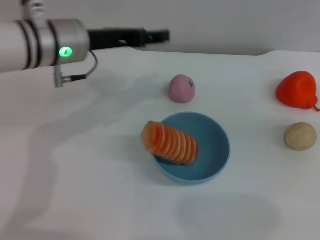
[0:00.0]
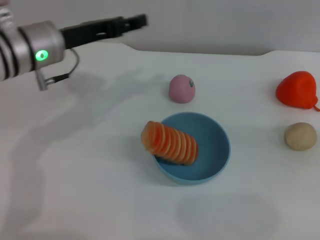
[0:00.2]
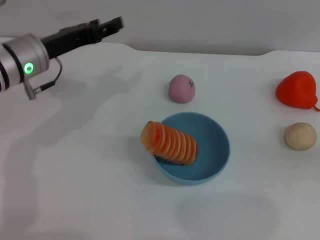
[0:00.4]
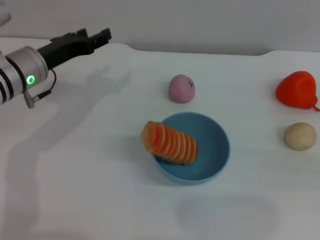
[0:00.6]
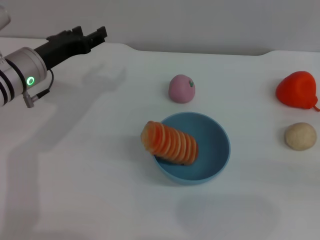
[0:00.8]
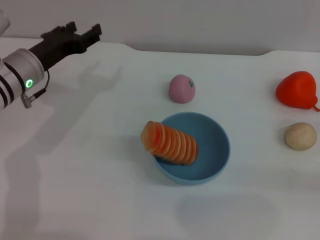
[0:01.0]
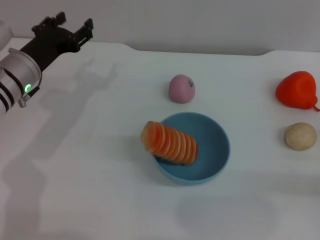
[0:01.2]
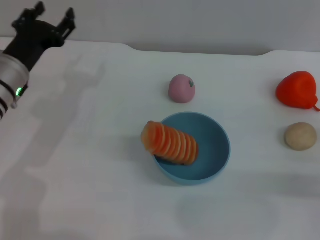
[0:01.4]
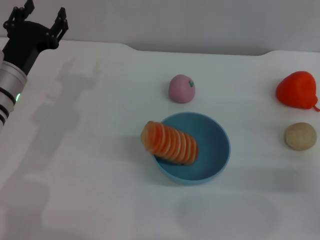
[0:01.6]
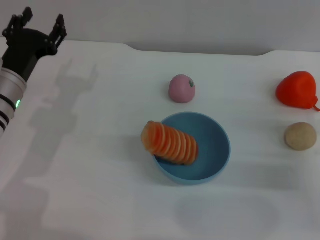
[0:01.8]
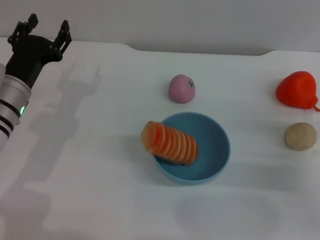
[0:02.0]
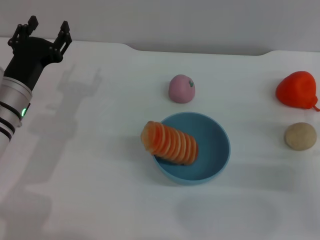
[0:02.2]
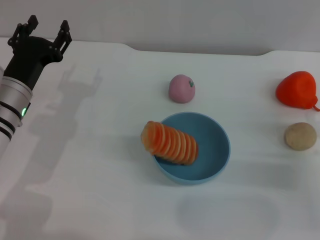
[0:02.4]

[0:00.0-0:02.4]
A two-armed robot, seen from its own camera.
Task of the whole recording: put the bread into the blue bowl and pour it out repeatedly.
0:00.0 to 0:01.2: The right gripper heads downward and backward, covering some 15 cm, while the left gripper travels downward and to the left by some 10 cm.

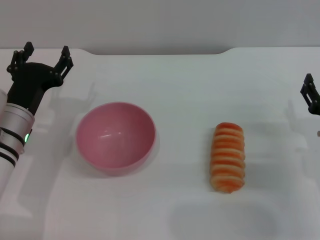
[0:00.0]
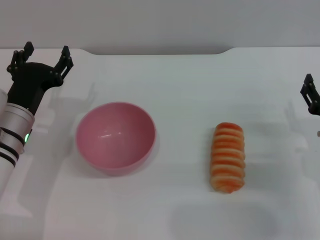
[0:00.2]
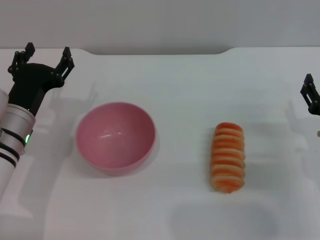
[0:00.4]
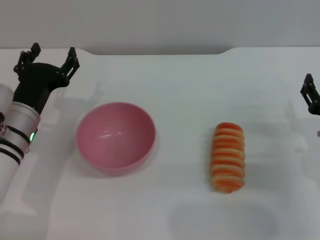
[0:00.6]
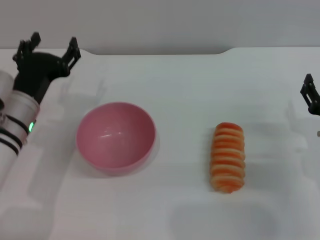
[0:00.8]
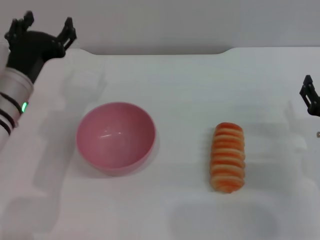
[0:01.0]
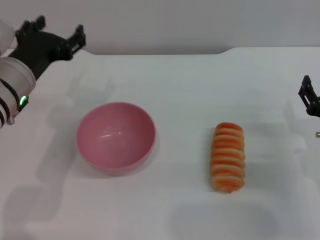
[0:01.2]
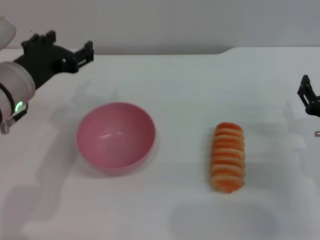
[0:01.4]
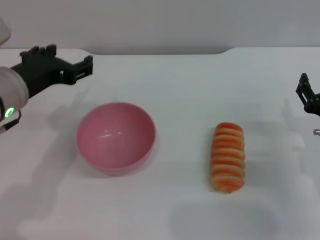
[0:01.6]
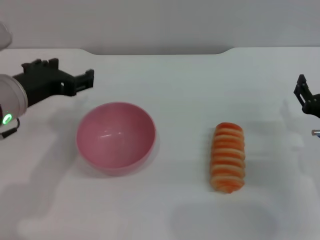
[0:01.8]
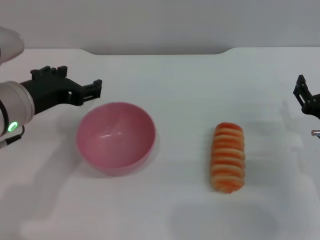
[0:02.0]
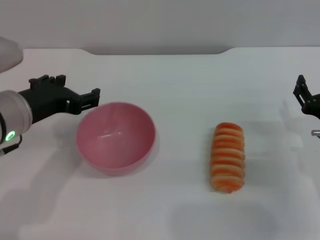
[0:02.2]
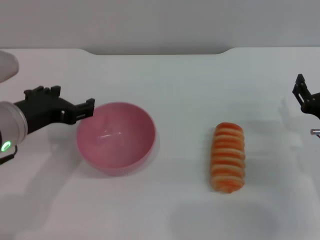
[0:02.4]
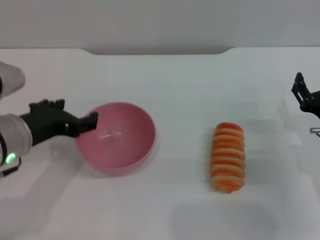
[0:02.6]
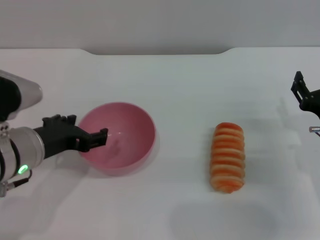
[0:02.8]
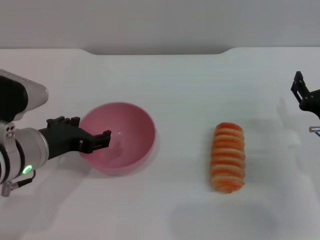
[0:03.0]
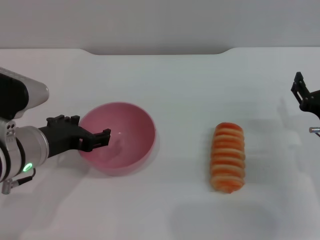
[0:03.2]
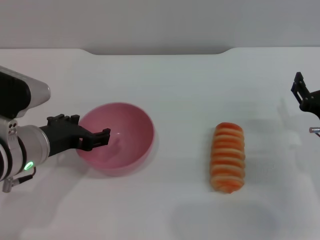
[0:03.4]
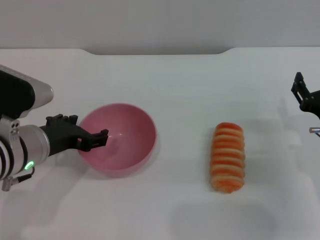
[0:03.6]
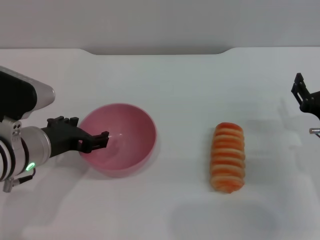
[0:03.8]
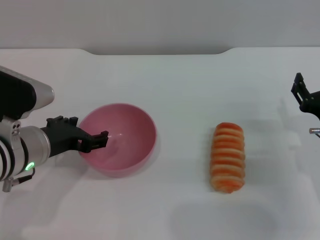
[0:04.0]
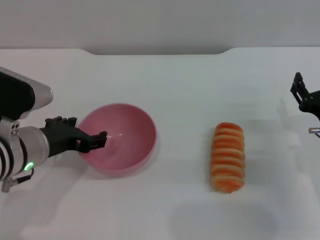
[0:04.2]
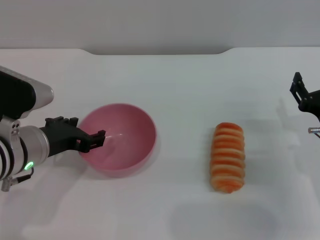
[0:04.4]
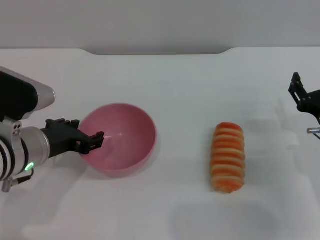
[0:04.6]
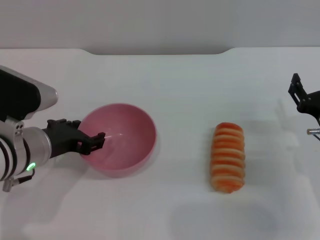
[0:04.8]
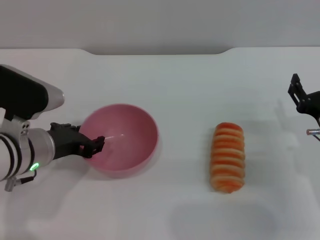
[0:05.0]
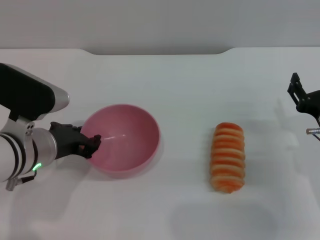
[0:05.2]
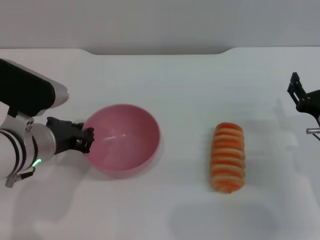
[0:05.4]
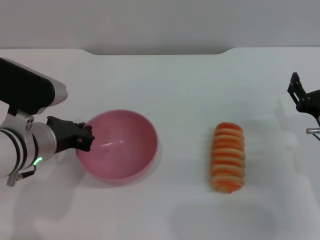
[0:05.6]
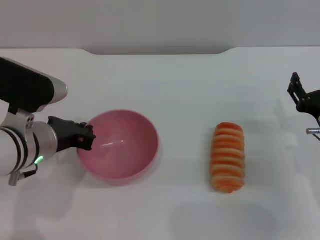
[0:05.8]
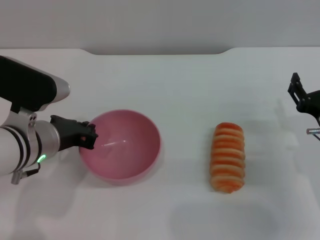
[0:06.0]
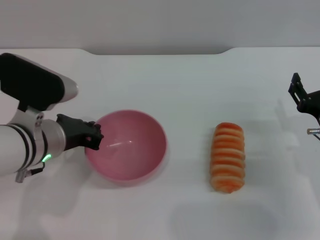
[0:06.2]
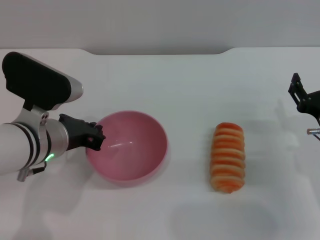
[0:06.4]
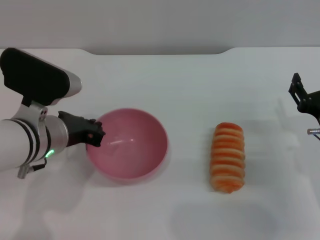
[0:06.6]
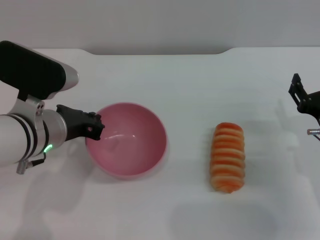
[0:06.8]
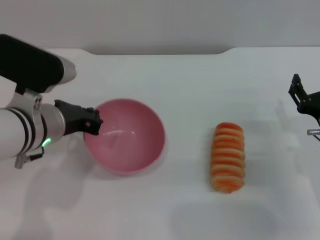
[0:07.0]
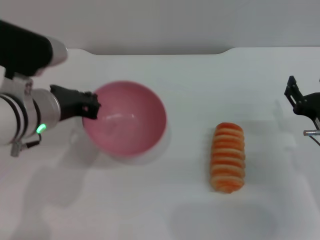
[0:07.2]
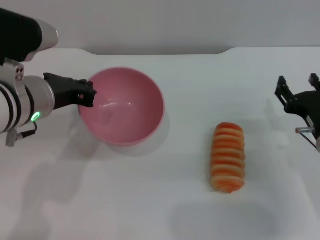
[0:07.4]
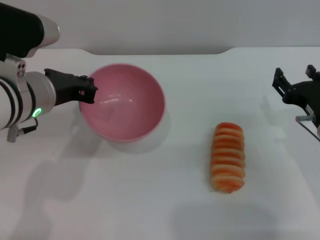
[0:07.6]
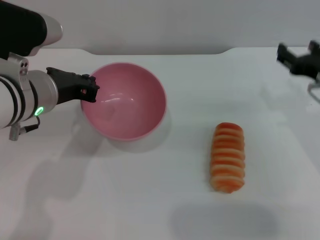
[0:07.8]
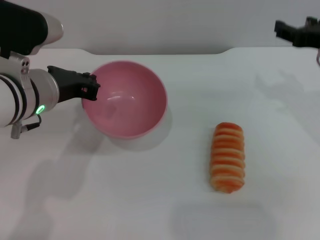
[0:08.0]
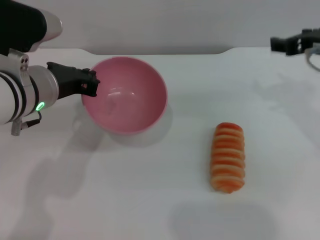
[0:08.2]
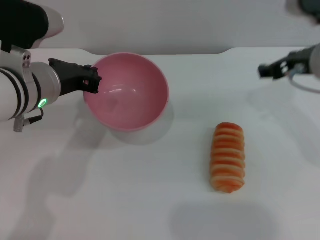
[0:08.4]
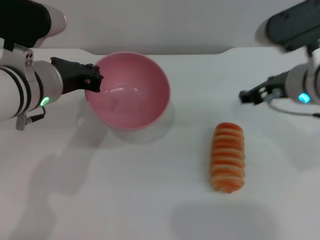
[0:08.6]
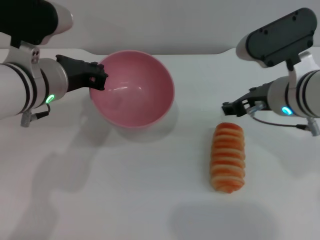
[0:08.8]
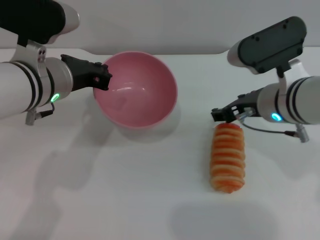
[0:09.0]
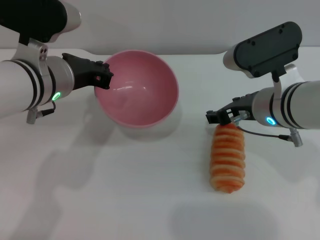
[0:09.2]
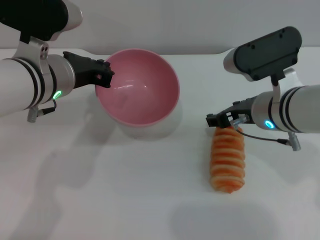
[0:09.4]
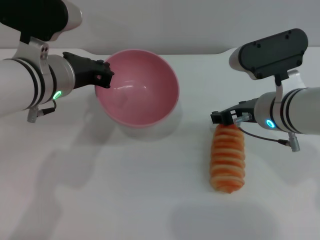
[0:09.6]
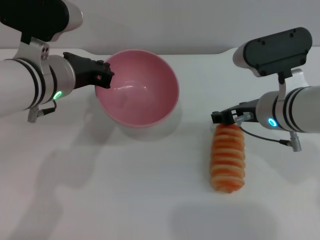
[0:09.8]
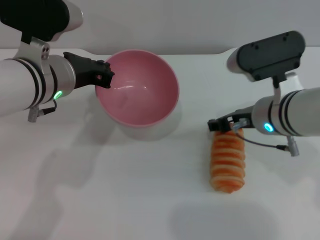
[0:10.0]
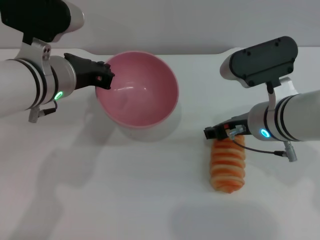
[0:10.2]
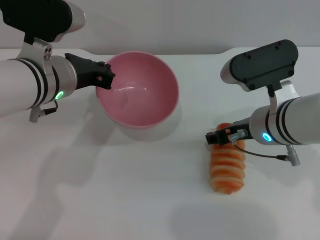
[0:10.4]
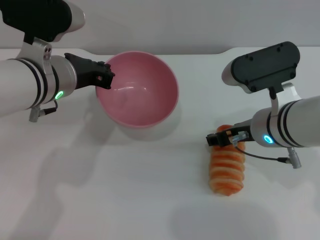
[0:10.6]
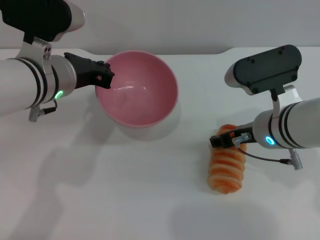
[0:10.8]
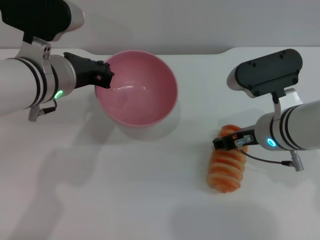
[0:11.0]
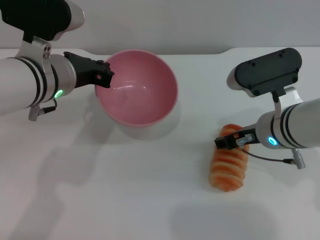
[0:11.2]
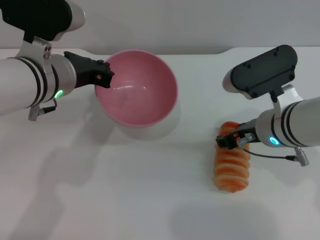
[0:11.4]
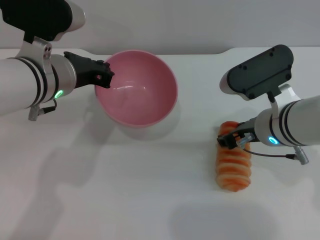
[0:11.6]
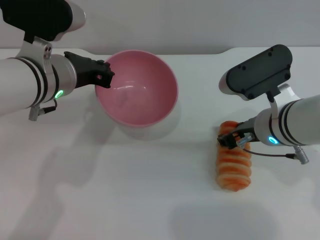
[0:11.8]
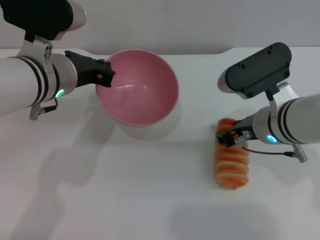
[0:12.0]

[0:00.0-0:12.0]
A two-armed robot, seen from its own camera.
Task of the whole recording: put the bread into the pink bowl and pour it out repeatedly.
Step, 0:00.0 to 0:07.2: Pick up the bowl with the left gripper.
0:00.0 to 0:01.6: The left gripper goes approximately 10 cm upward.
0:01.6 to 0:03.0: The left gripper moves about 5 cm.
0:03.0 to 0:04.4: Both grippers stay put.
0:04.4 to 0:06.0: The left gripper closes its fingers.
0:06.0 to 0:07.6: The left gripper shifts roughly 5 cm upward.
0:07.6 to 0:09.0: The right gripper heads to the left and upward, covering roughly 10 cm.
0:09.0 to 0:12.0: The grippers make only small movements.

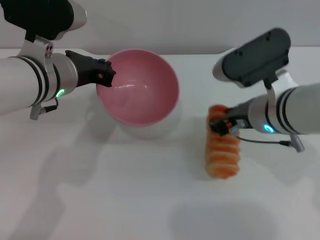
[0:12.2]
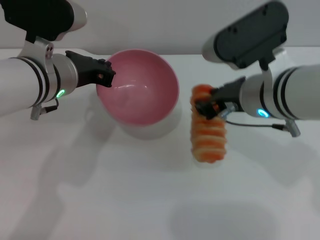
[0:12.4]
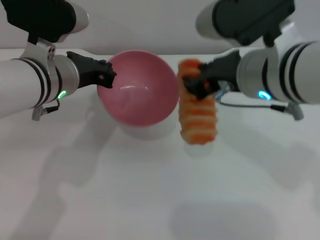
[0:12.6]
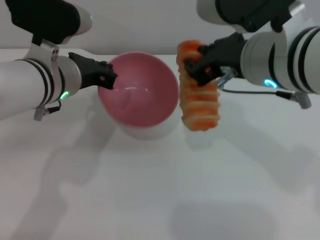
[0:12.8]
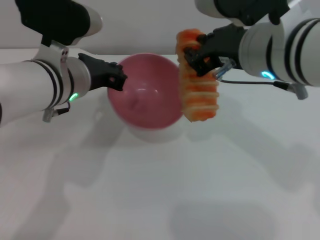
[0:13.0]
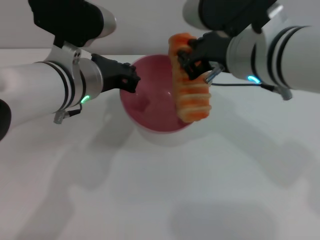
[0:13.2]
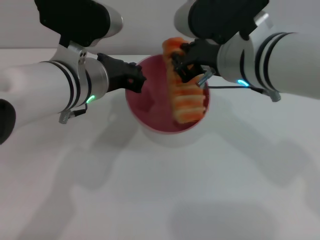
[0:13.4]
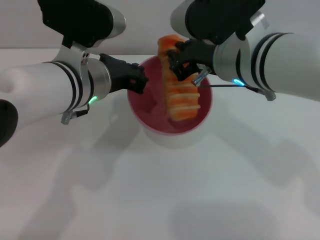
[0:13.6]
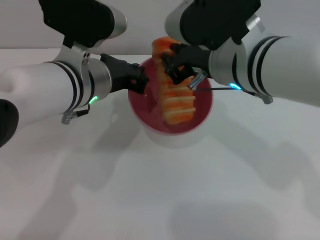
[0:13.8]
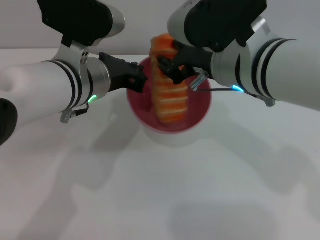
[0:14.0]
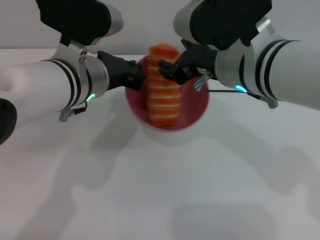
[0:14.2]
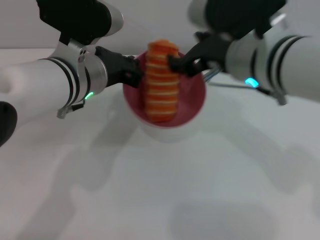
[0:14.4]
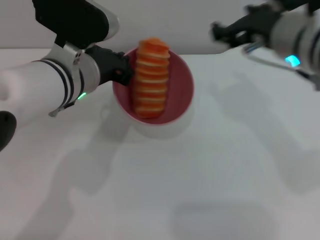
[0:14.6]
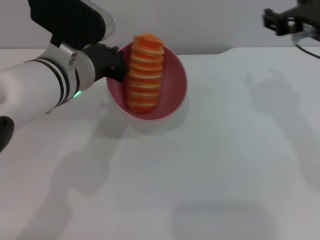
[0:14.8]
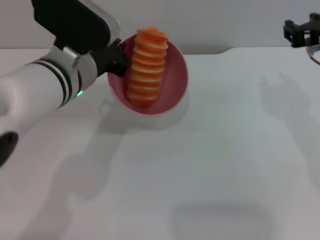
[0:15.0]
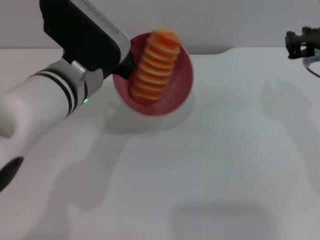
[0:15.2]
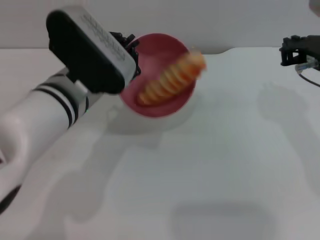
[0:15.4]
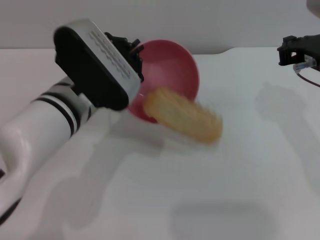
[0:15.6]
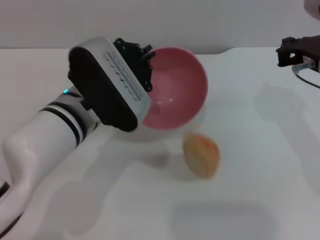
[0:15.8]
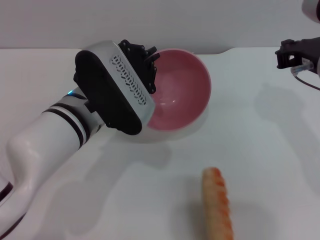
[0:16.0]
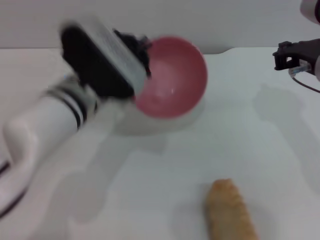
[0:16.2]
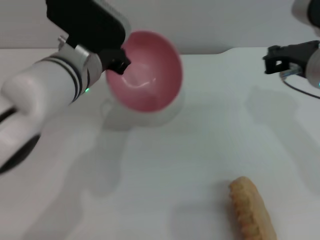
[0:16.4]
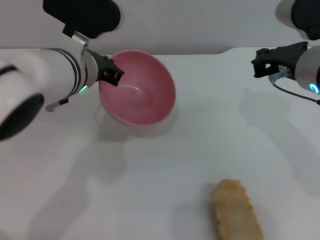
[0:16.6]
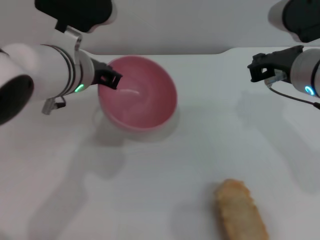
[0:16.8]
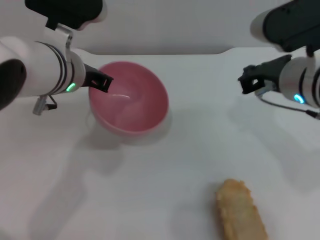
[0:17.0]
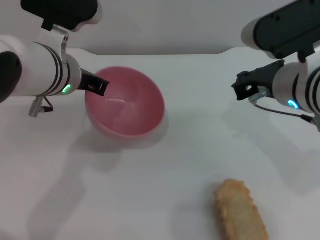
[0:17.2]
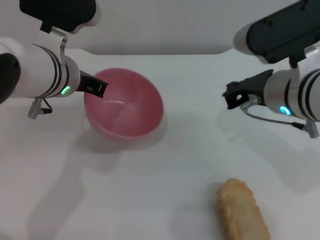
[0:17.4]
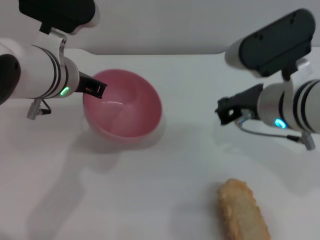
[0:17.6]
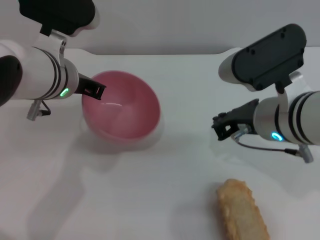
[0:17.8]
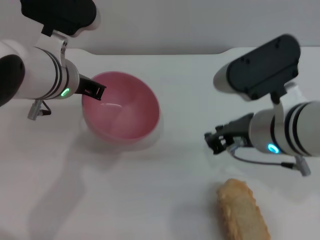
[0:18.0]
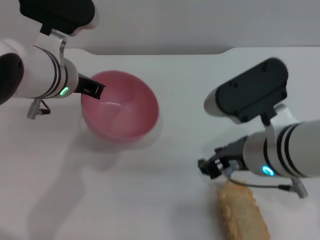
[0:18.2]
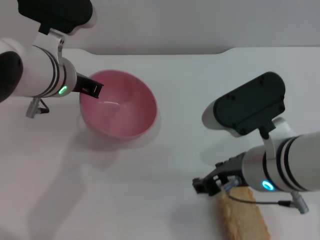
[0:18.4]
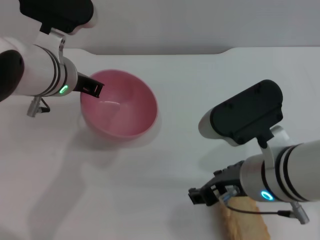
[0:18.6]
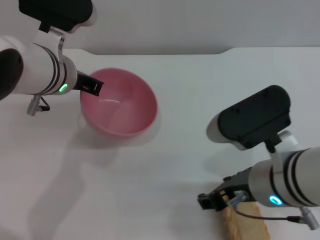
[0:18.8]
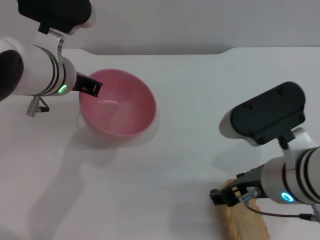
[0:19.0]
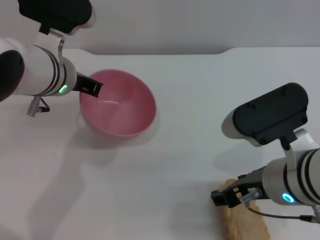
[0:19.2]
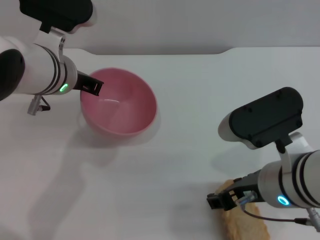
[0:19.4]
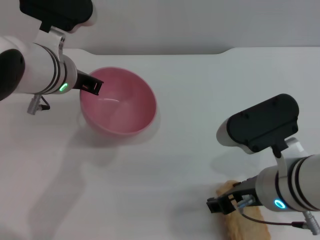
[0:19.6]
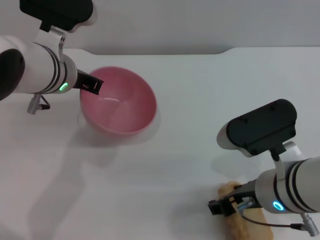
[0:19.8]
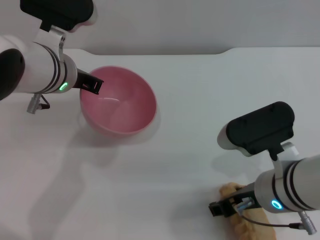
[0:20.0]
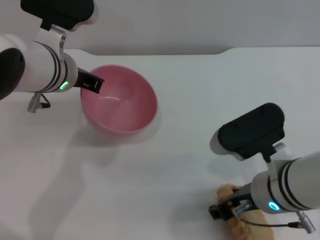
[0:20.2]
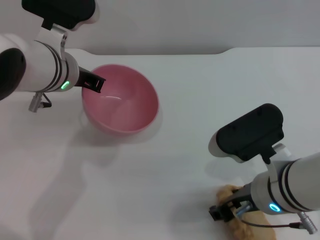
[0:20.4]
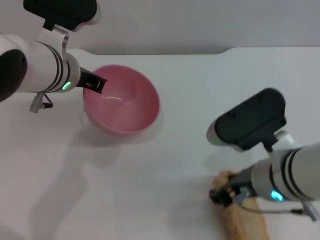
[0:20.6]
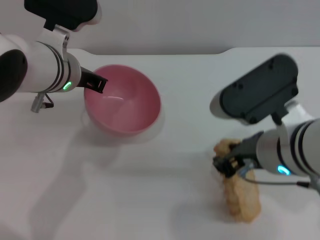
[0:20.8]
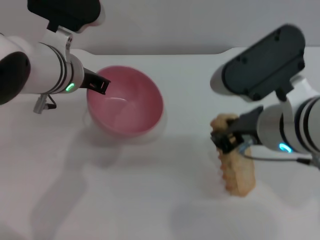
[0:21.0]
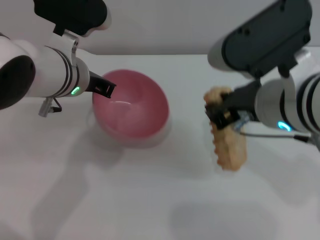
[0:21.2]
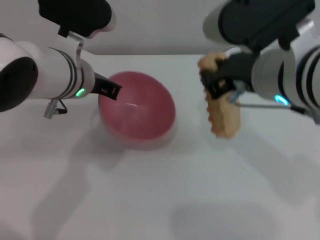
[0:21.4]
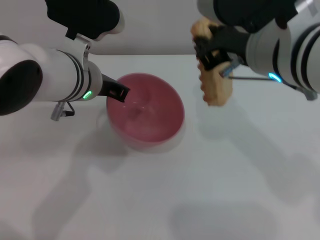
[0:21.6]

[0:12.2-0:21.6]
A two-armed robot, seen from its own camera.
Task of the whole recording: put the bread into the pink bowl and pour it out repeatedly.
Step, 0:12.6 to 0:14.8: Place the bread into the bowl.
Step, 0:15.0 to 0:16.8: Pour the bread out of the bowl.
Step, 0:17.2 to 0:21.4: Pick up the bread with the right gripper.
0:12.2 to 0:13.8: The right gripper shifts roughly 10 cm upward and to the left, and closes up.
0:13.8 to 0:15.4: The right gripper is displaced to the right by about 10 cm, and opens, then closes once more.
0:17.0 to 0:18.4: The right gripper moves backward, some 5 cm, and opens its fingers.
0:18.4 to 0:20.0: There are only small adjustments of the grippers.
0:20.0 to 0:21.6: The right gripper moves upward, about 15 cm, and closes its fingers.
